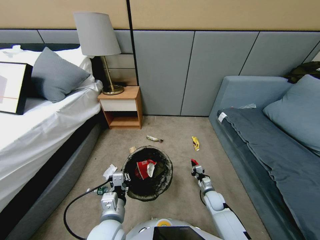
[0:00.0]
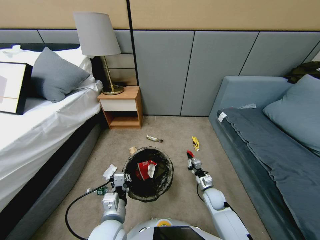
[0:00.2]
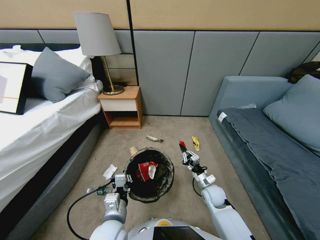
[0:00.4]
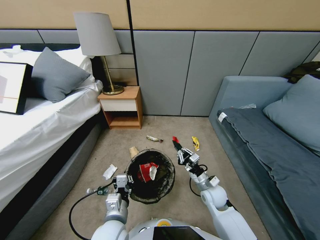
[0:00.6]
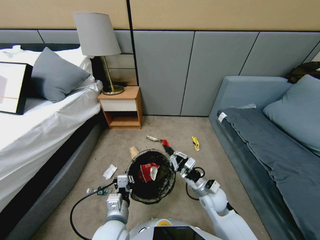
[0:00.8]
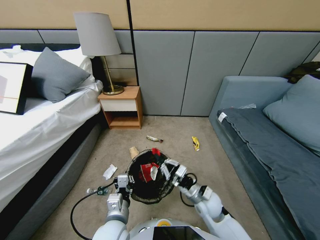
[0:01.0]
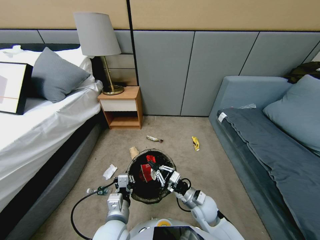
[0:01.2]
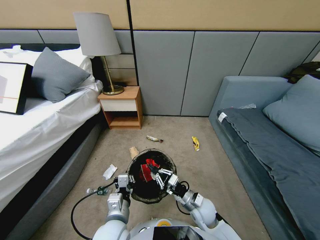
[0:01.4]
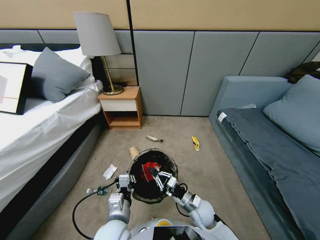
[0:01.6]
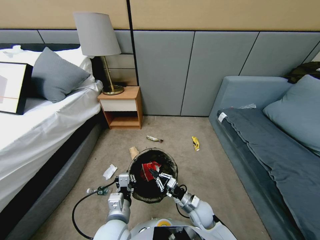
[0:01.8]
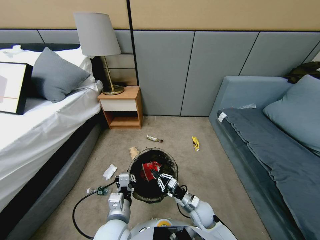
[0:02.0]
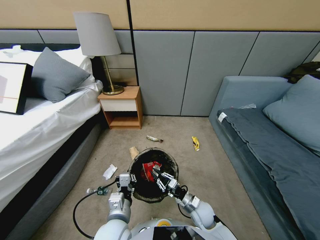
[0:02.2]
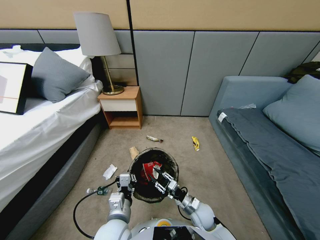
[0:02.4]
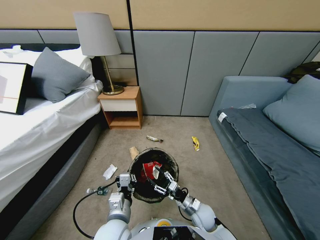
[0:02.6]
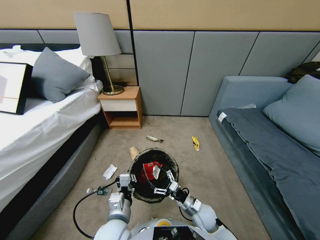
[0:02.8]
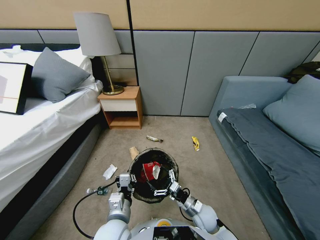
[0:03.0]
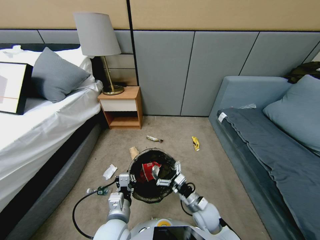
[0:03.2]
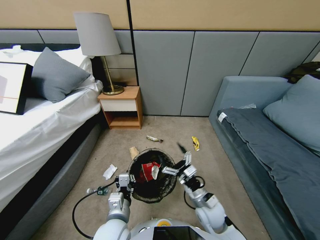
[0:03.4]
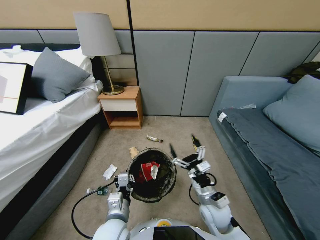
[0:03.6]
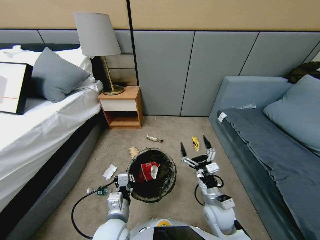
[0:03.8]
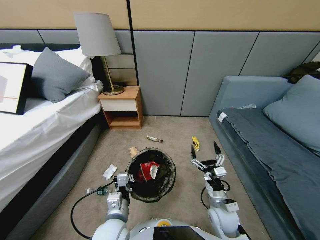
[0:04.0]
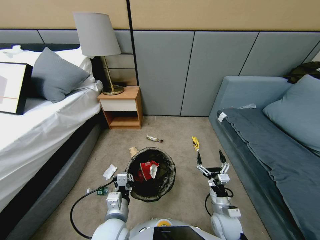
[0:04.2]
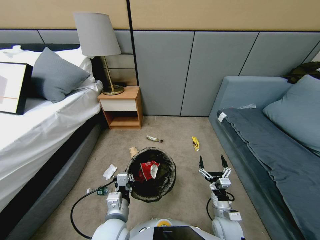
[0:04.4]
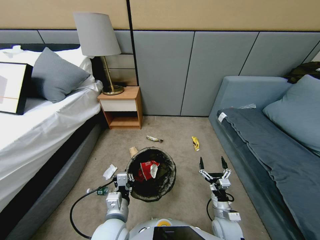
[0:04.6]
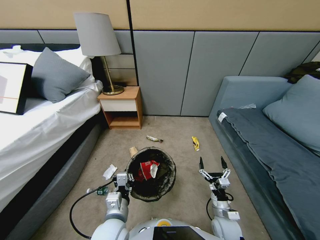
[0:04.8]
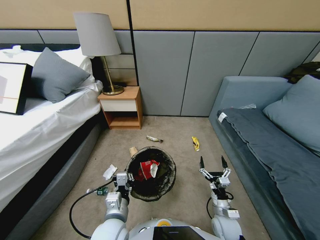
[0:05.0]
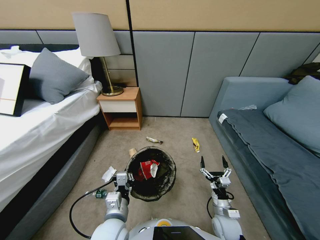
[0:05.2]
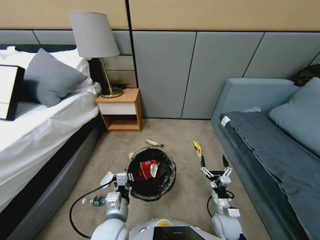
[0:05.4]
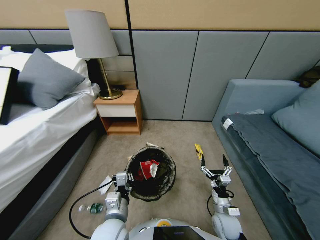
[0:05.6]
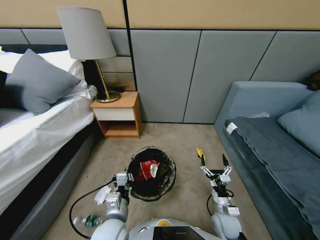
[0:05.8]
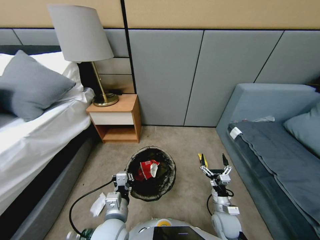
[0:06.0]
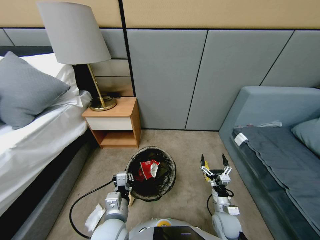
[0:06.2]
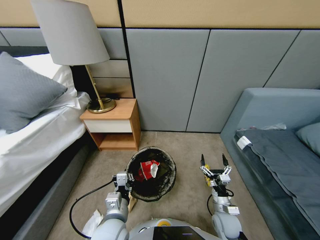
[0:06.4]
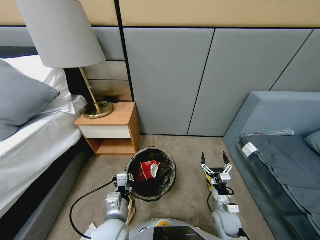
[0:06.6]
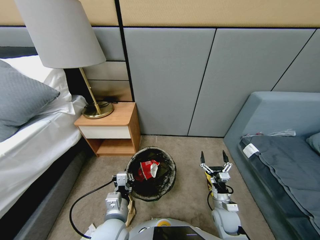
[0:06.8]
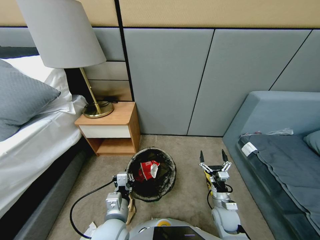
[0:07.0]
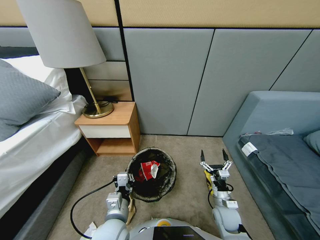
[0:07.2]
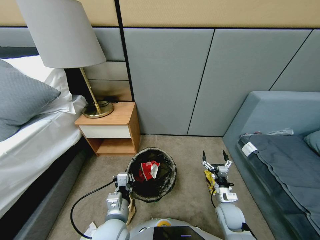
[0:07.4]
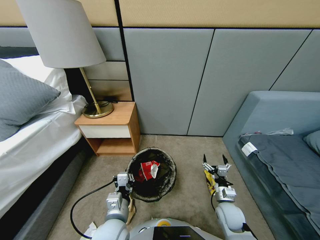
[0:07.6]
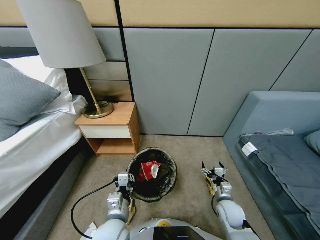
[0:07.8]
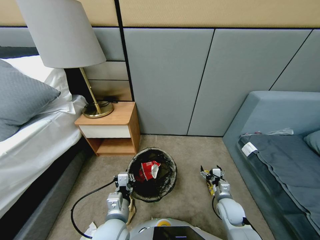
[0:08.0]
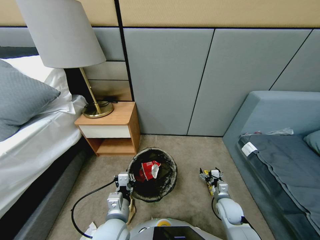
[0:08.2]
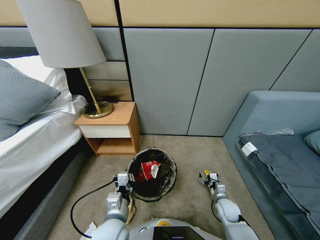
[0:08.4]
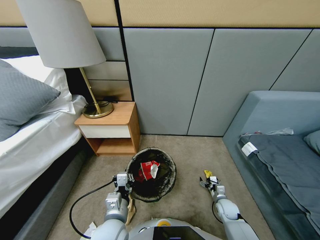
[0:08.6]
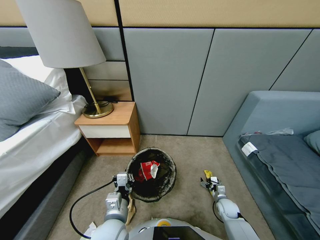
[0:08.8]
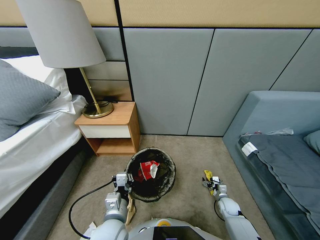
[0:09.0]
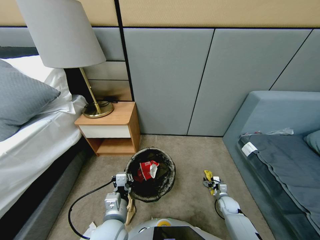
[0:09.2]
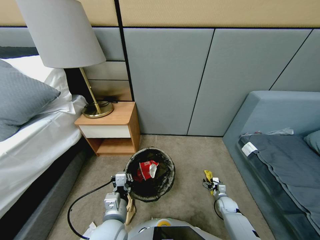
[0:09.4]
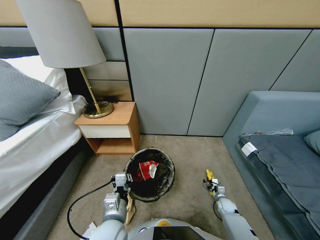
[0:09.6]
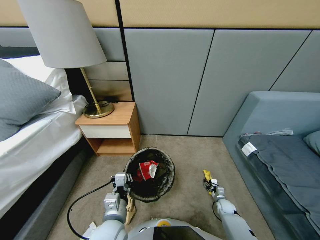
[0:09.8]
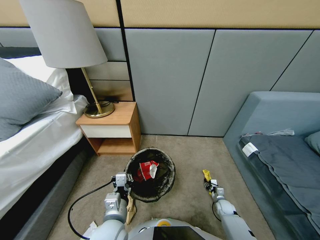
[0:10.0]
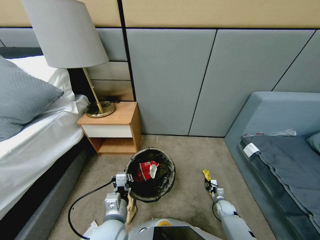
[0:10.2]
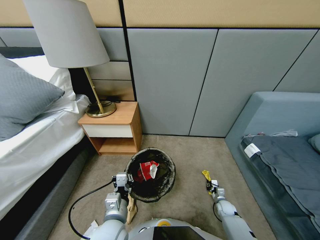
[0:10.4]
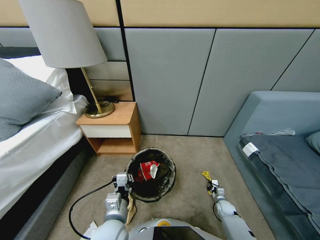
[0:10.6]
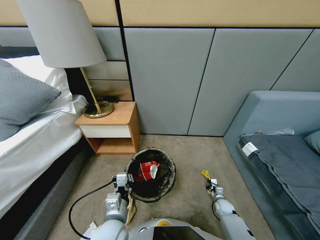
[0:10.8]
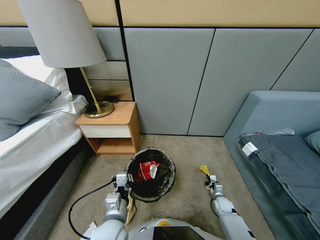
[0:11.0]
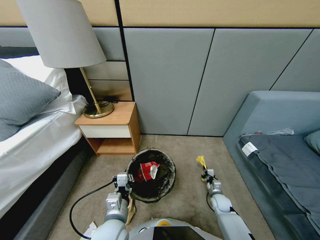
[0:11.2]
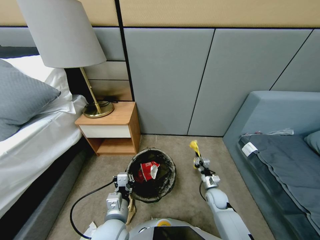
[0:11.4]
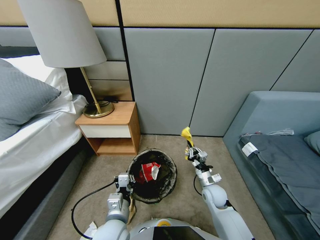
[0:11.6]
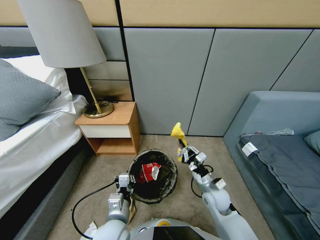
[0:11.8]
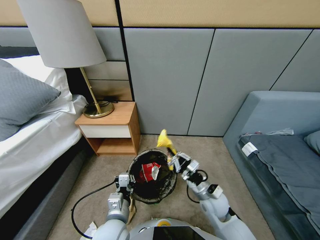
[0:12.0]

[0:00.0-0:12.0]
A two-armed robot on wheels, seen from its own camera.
Task of the whole recording: Pick up the trash bin, then pick up the garbage from the floor and place it into the trash bin.
0:00.0 to 0:01.6: The right gripper goes roughly 15 cm to the left, backward and upward.
0:01.6 to 0:03.0: The right gripper opens.
0:03.0 to 0:04.4: The right gripper heads to the right, covering roughly 10 cm, and travels upward and back again, about 10 cm each way.
0:07.6 to 0:09.0: The right gripper heads downward and to the right, covering some 15 cm.
0:09.0 to 0:10.4: The right gripper is displaced downward by roughly 5 cm, and closes up.
0:10.4 to 0:12.0: The right gripper moves upward and to the left, some 35 cm.

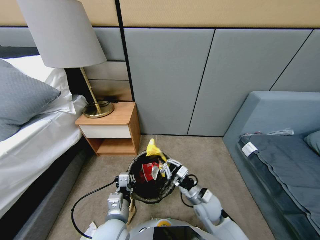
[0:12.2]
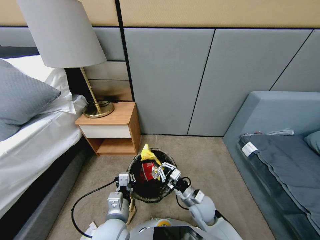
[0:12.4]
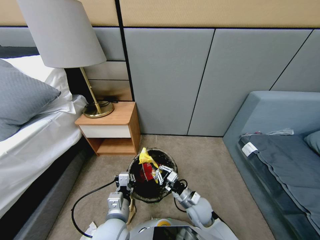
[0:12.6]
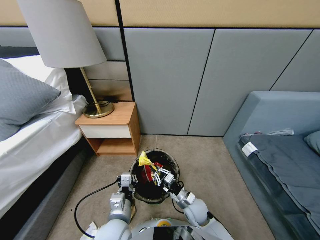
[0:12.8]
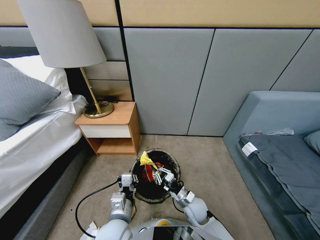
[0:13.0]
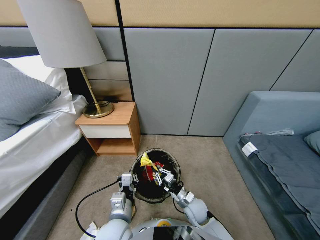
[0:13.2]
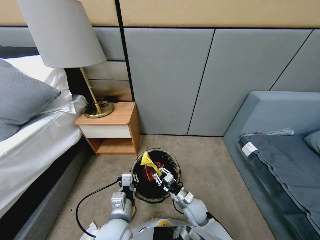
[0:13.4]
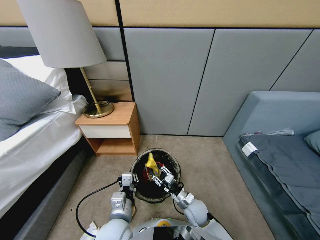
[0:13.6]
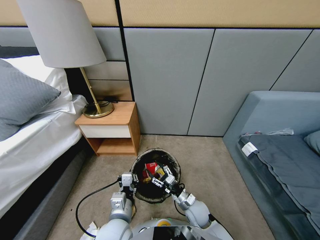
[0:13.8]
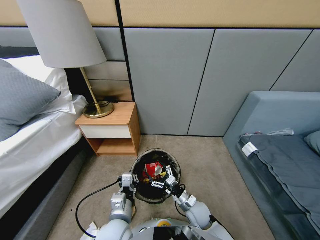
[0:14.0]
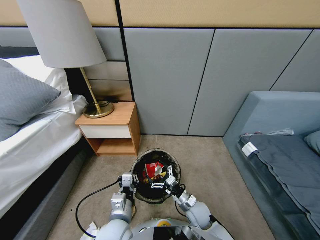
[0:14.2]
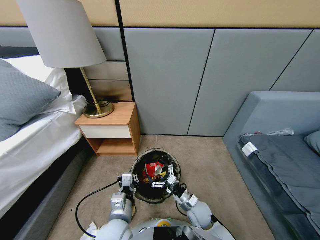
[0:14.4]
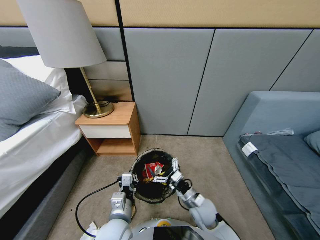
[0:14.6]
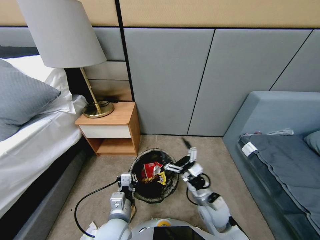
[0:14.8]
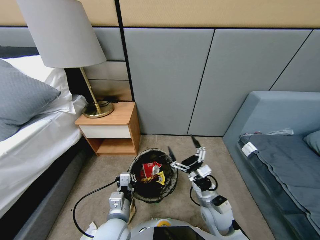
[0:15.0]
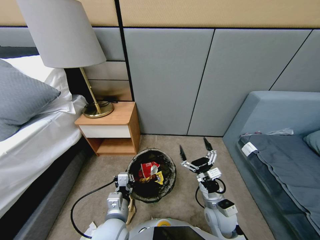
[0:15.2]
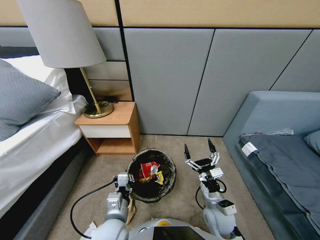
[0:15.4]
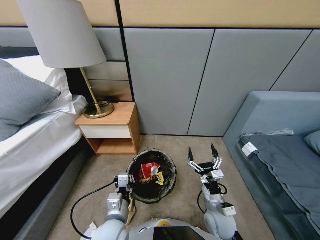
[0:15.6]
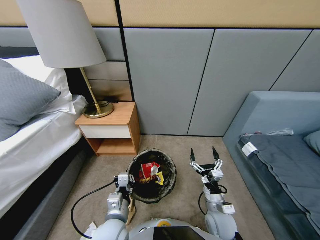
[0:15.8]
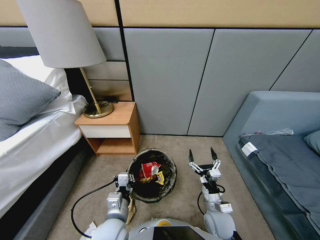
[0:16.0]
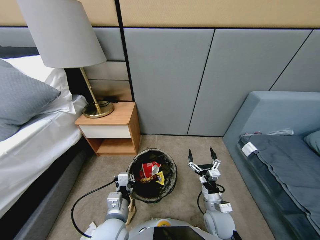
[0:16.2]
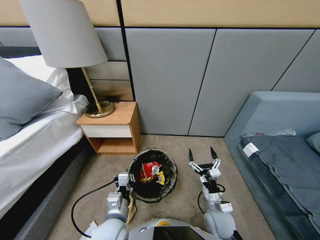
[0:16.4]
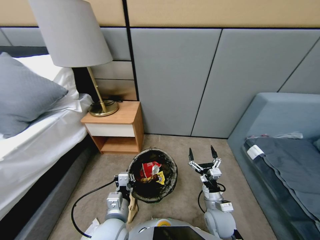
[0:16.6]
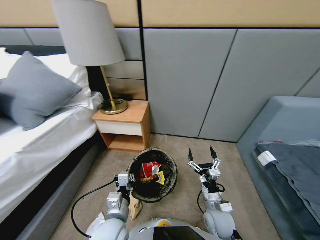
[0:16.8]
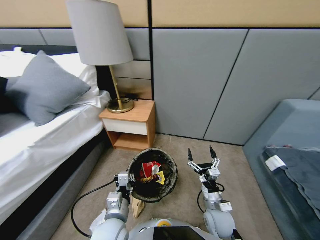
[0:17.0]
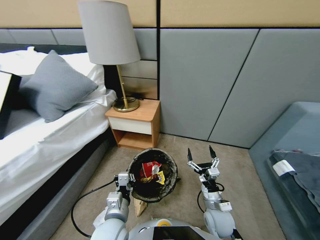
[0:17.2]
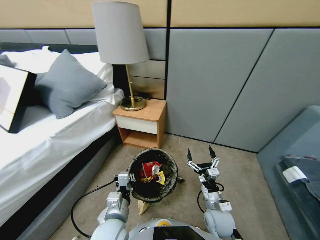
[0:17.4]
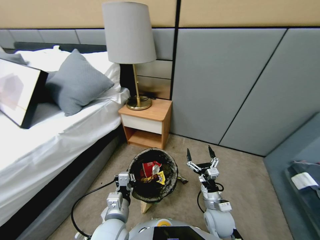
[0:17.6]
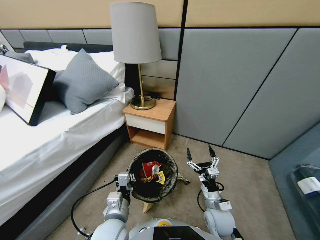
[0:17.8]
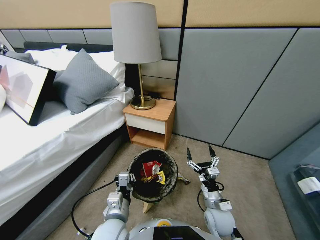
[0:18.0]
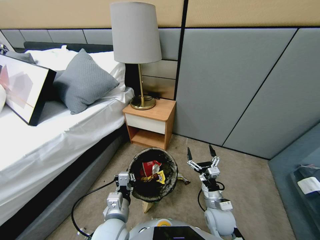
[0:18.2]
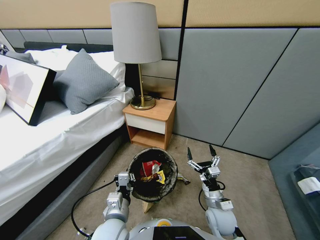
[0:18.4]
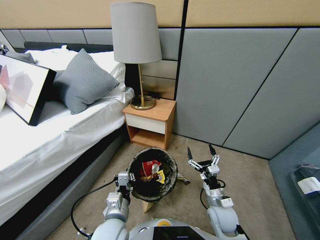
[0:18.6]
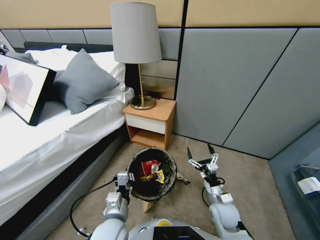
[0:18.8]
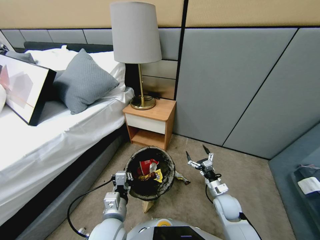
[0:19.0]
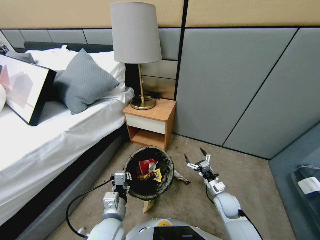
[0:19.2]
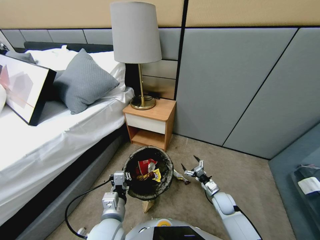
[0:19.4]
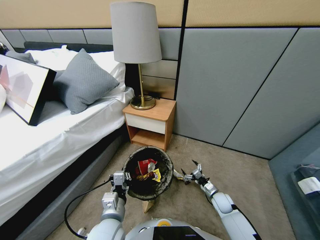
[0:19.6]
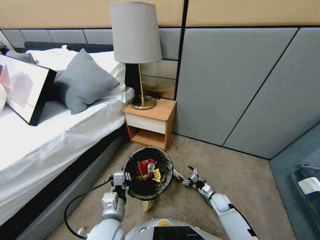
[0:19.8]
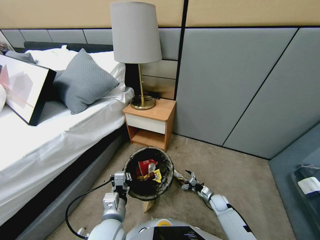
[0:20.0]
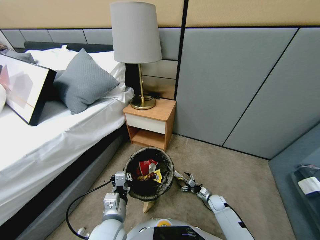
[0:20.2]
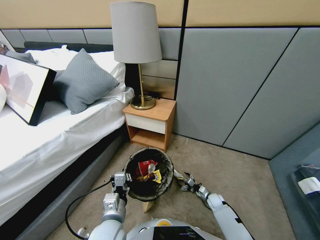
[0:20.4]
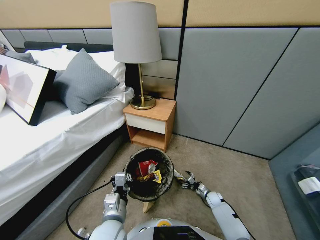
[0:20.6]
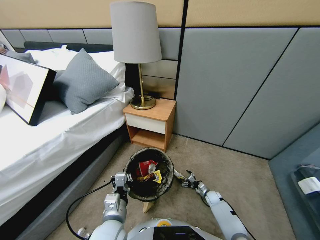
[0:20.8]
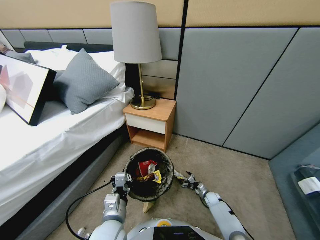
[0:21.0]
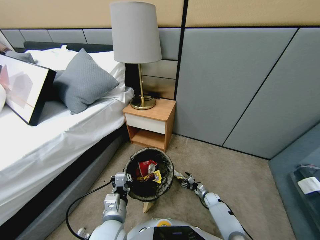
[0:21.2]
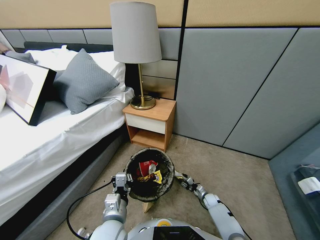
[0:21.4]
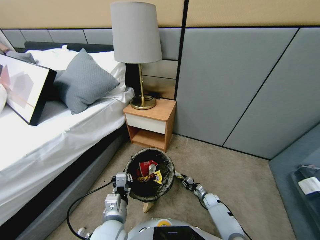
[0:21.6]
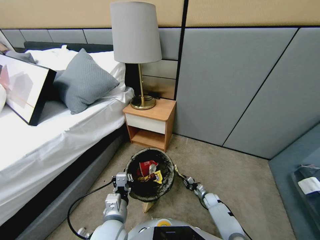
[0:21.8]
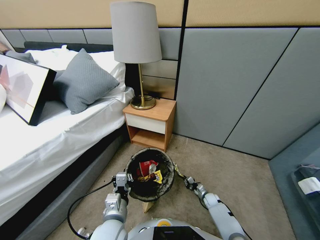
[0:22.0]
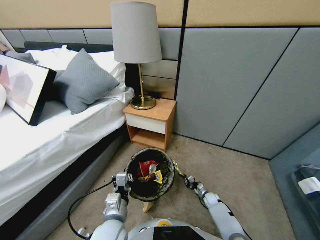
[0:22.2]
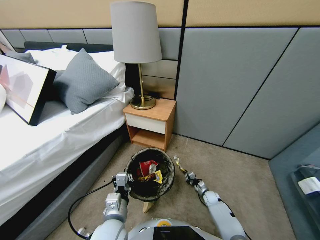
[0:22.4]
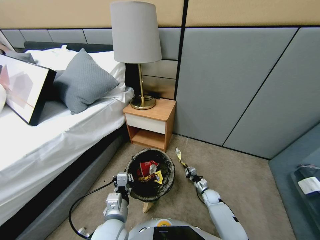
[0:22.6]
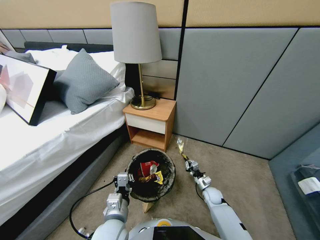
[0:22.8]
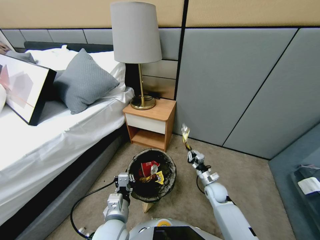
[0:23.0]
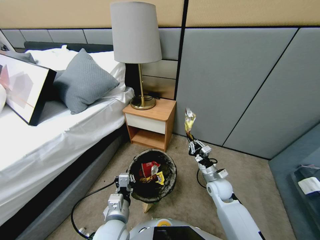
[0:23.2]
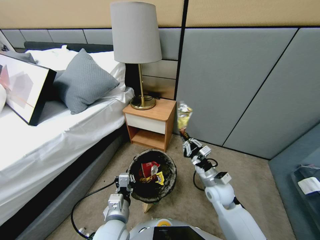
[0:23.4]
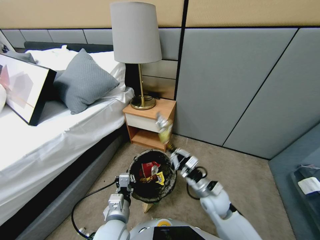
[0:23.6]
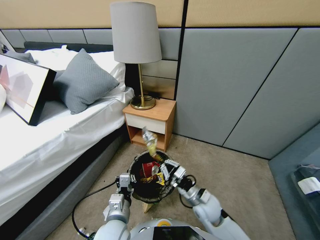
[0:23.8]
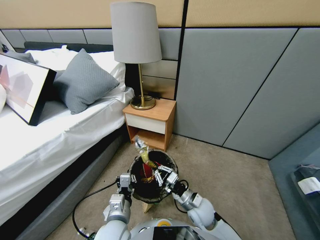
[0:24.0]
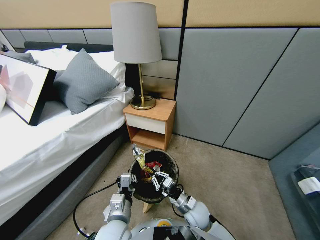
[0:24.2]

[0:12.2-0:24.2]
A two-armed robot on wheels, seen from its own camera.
Task of the whole recording: Pick up the trash bin, then pick up the garbage from the floor and place it into the trash bin.
0:12.2 to 0:13.8: The right gripper heads downward, covering approximately 5 cm, and opens up.
0:13.8 to 0:15.2: The right gripper heads upward, covering approximately 10 cm.
0:15.2 to 0:16.6: The grippers move only a little.
0:18.2 to 0:19.8: The right gripper shifts approximately 25 cm downward, to the right and forward.
0:19.8 to 0:21.2: The right gripper is displaced downward by approximately 10 cm, and closes its fingers.
0:21.2 to 0:22.6: The right gripper heads upward, covering some 10 cm, and closes.
0:22.6 to 0:24.2: The right gripper travels to the left, upward and backward by some 20 cm.
